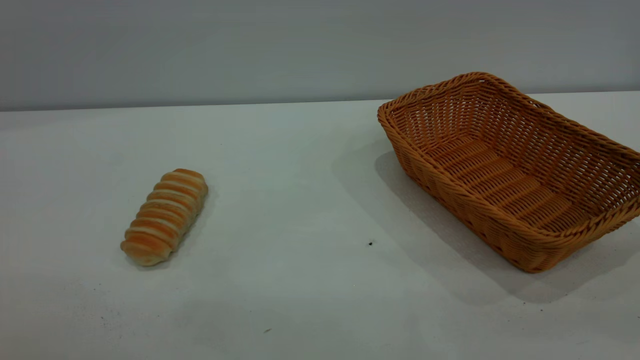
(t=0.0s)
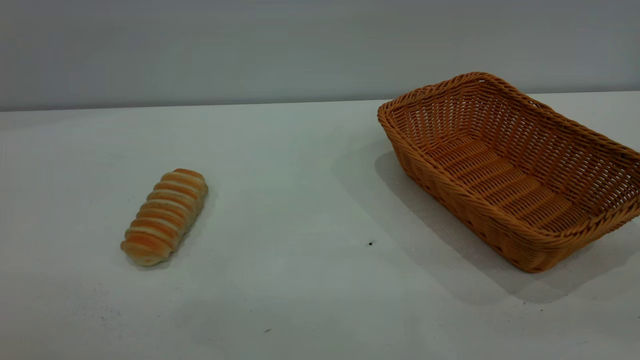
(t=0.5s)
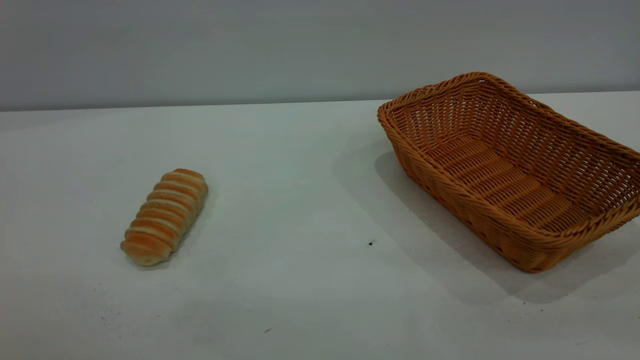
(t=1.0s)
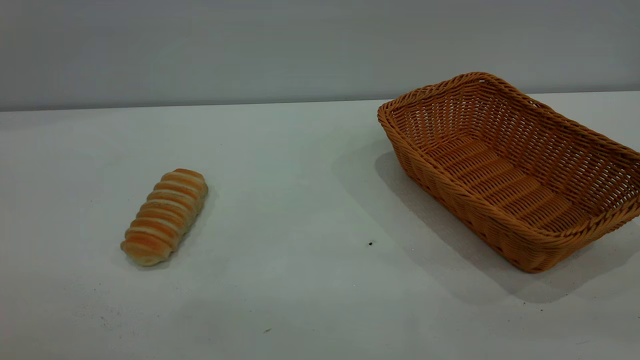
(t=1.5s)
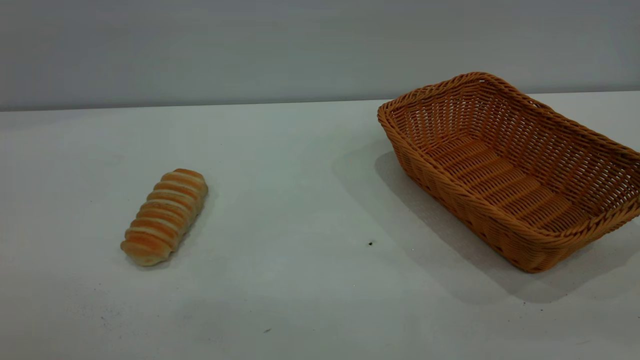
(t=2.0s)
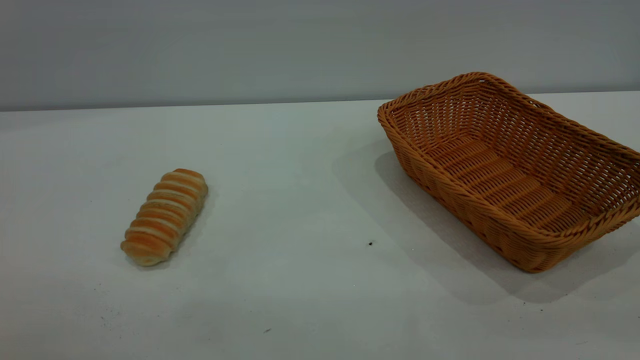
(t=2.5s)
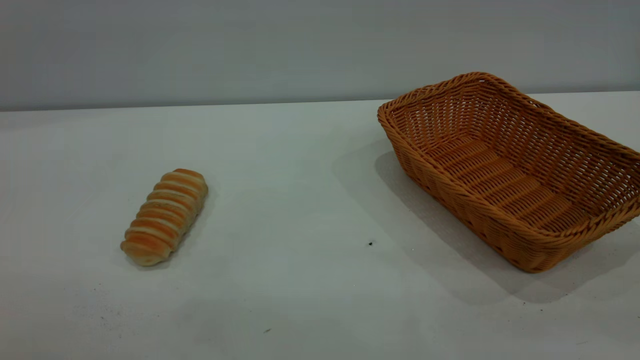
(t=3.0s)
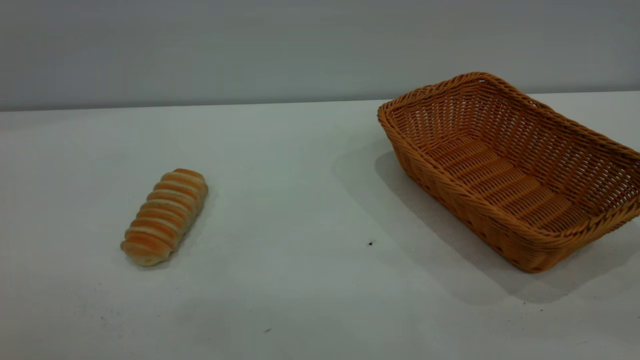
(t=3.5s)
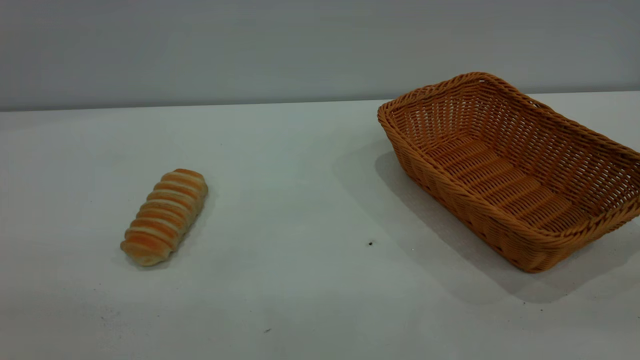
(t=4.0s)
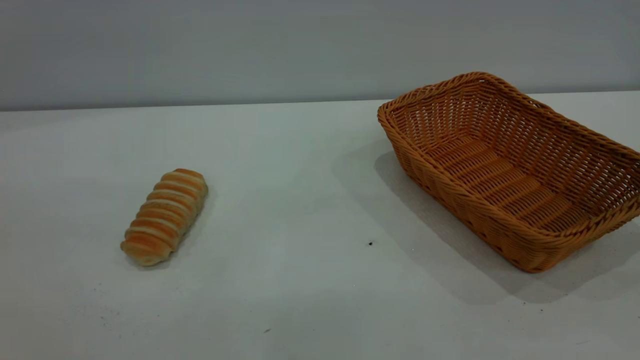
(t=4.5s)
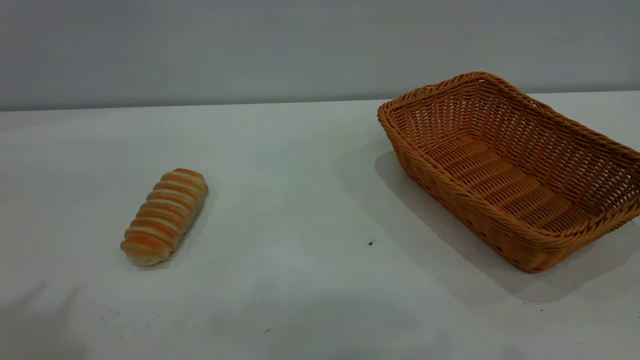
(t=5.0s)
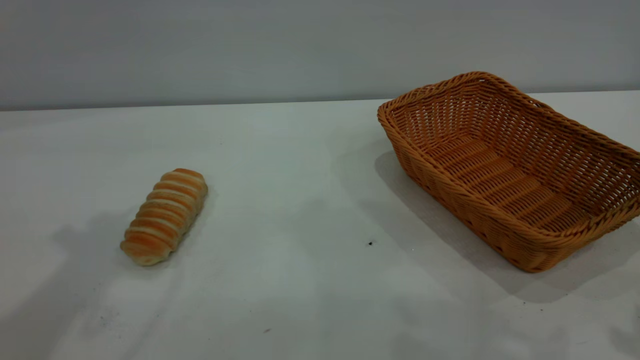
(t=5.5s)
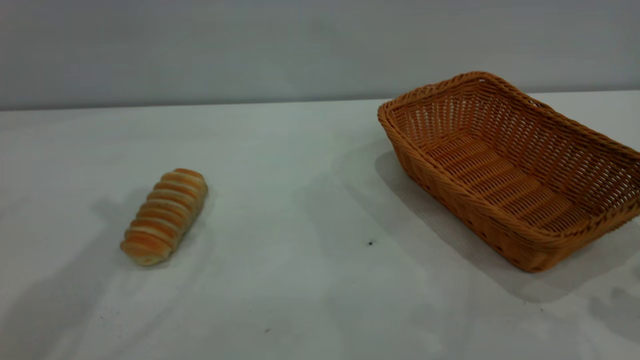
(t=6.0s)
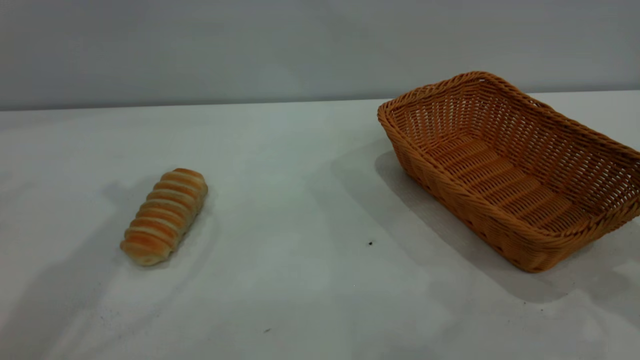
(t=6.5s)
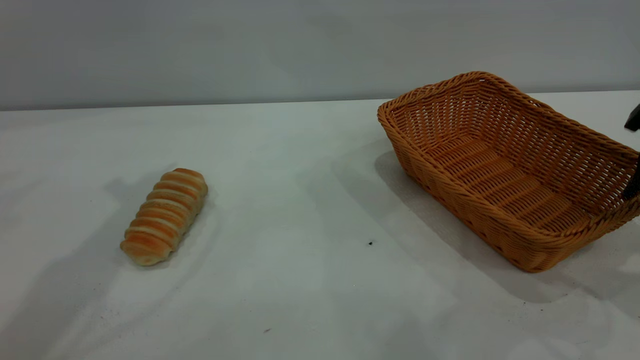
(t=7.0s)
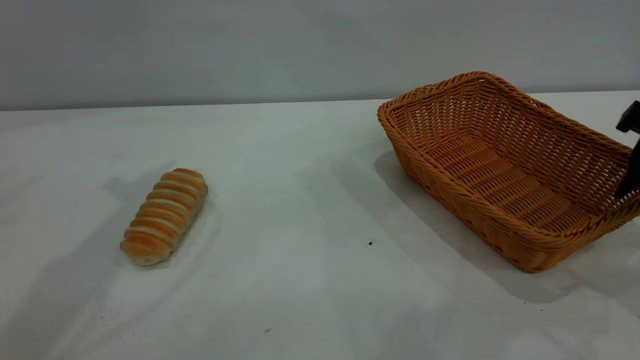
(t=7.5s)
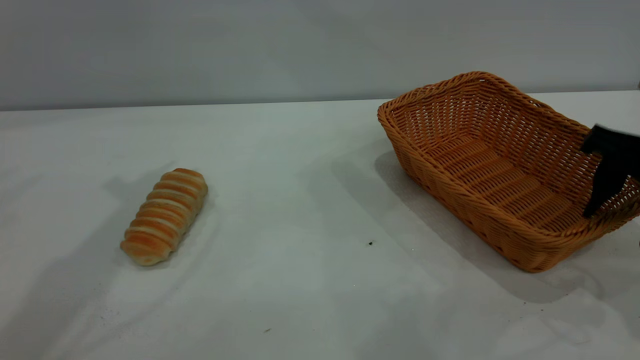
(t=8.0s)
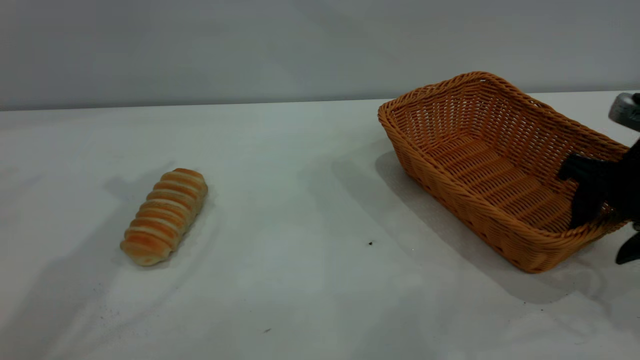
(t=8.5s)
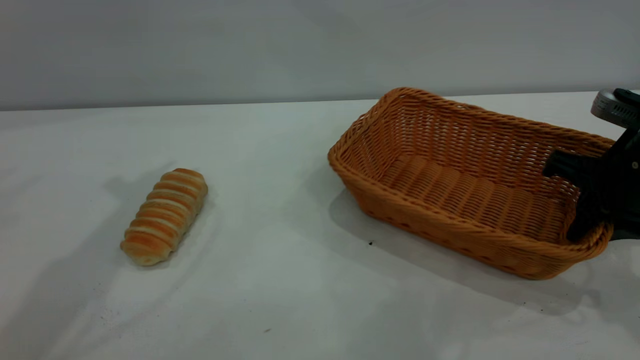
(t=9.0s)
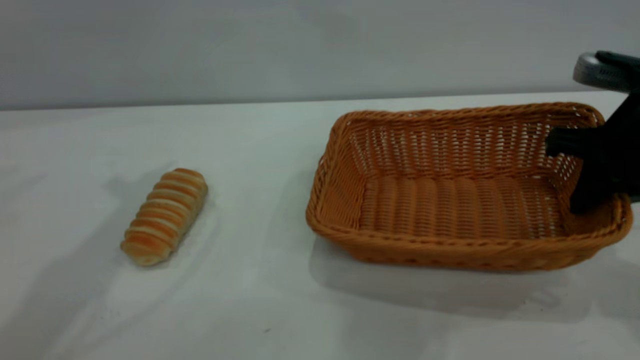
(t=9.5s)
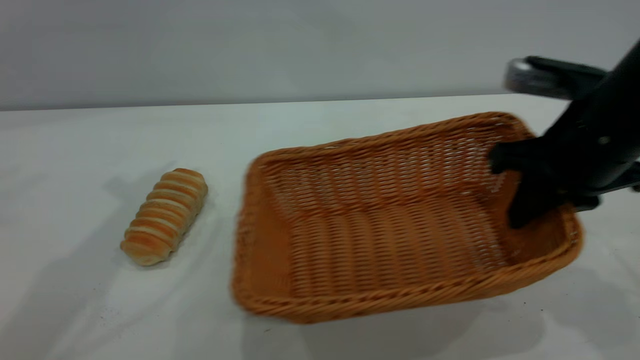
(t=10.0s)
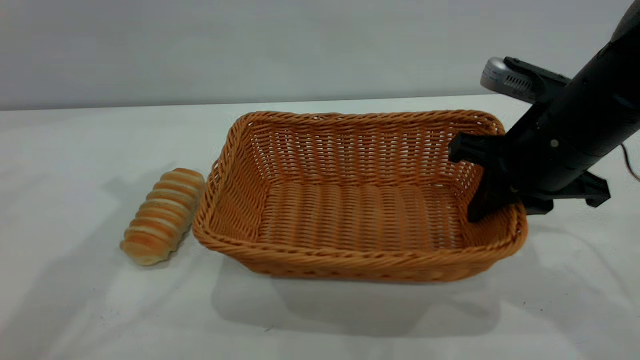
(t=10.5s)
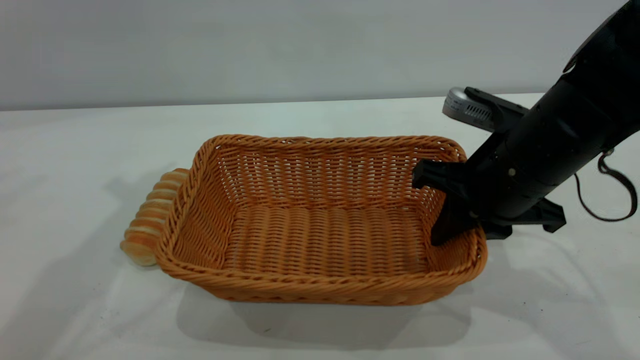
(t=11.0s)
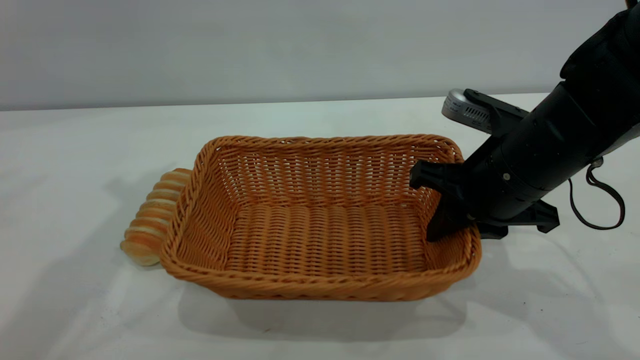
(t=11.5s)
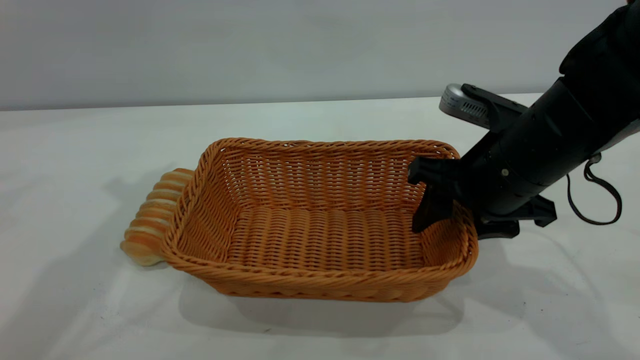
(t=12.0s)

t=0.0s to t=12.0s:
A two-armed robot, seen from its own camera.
Task of the whole recording: One hand grasps the yellow basket and places it in the middle of the table, while the other hand picks up the long bread and puts it into the yellow basket.
t=0.0s to t=2.0s: Both grippers stay about where they are.
t=6.0s to t=8.0s: The right gripper is displaced downward and forward by roughly 10 cm.
t=8.0s to t=10.0s: The right gripper goes some 10 cm to the left, and closes its fingers.
t=10.0s to t=12.0s: The right gripper moves about 5 cm, and opens its fingers.

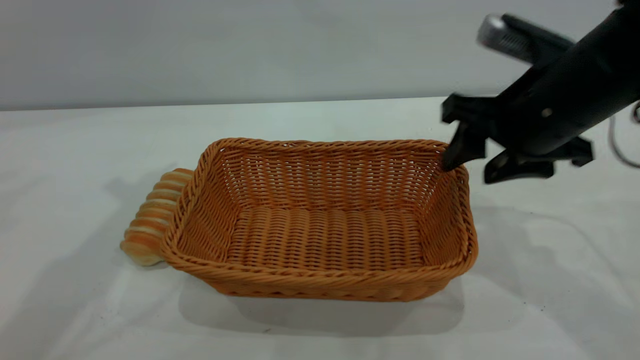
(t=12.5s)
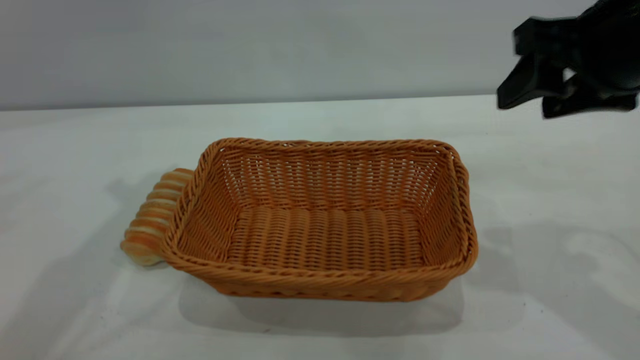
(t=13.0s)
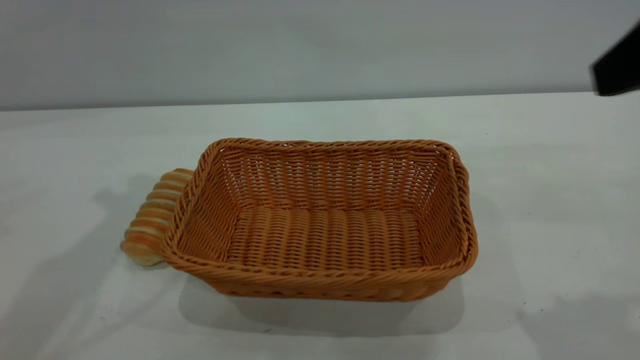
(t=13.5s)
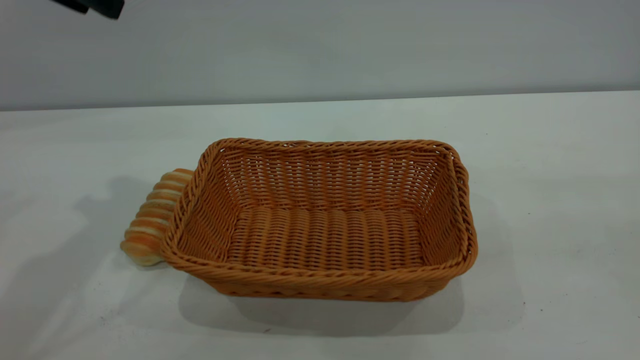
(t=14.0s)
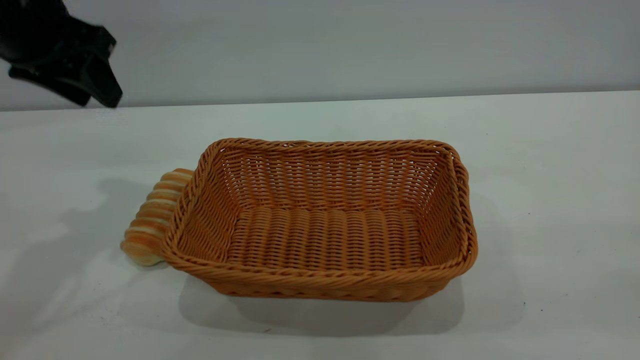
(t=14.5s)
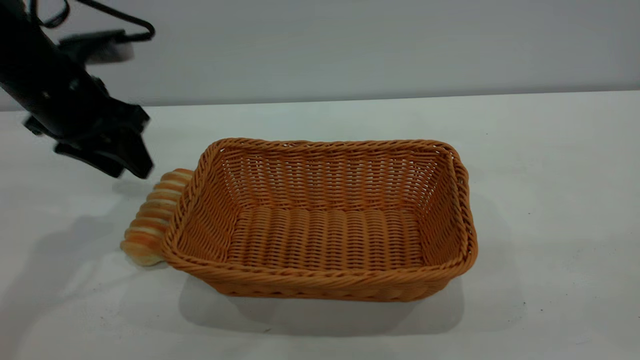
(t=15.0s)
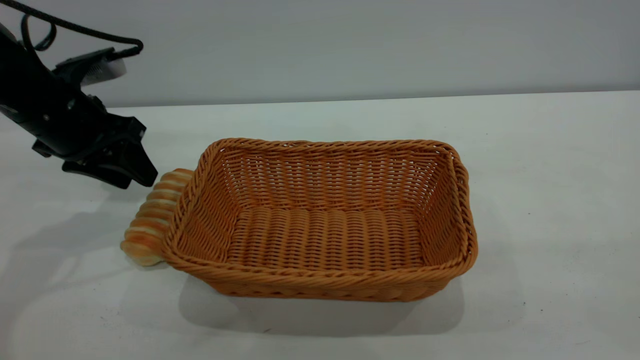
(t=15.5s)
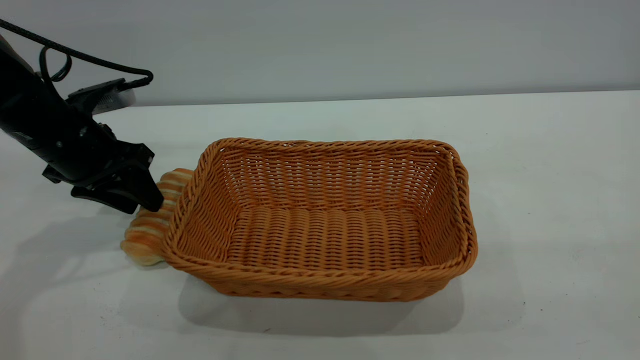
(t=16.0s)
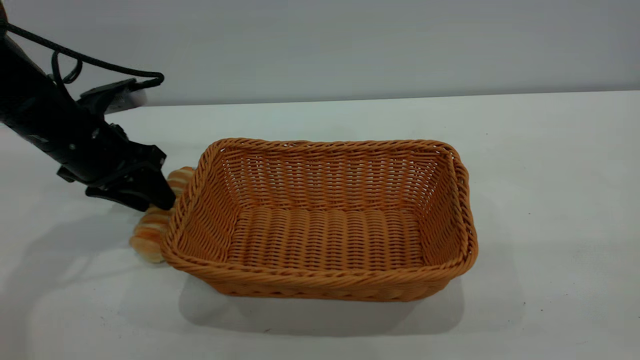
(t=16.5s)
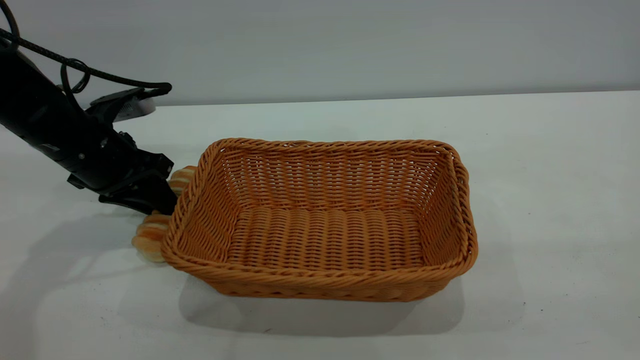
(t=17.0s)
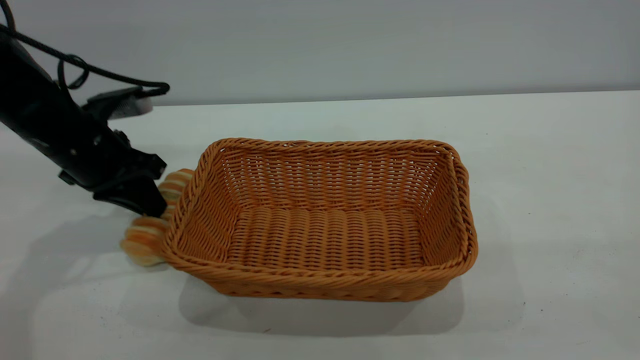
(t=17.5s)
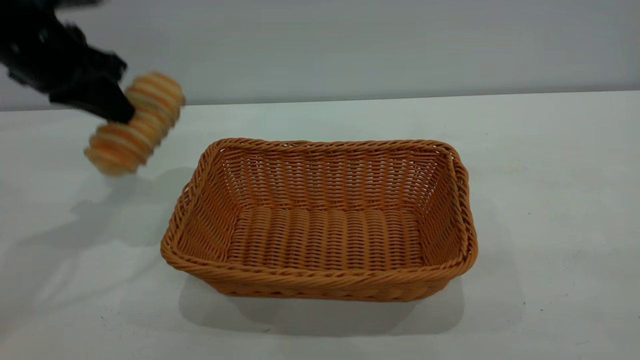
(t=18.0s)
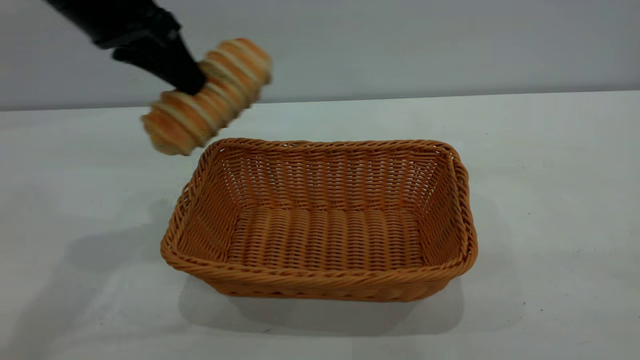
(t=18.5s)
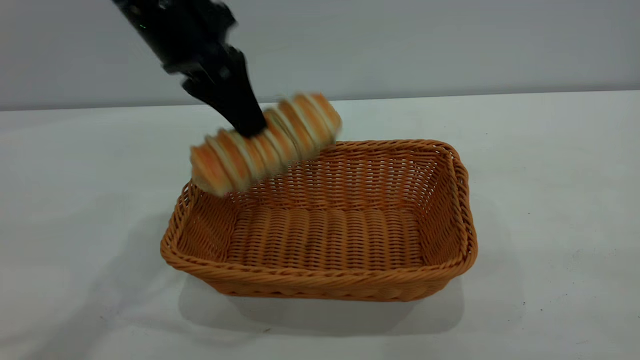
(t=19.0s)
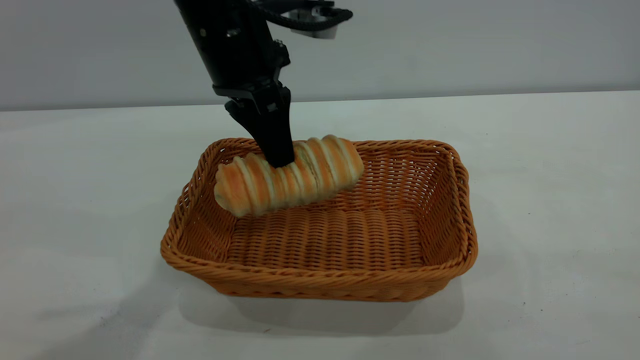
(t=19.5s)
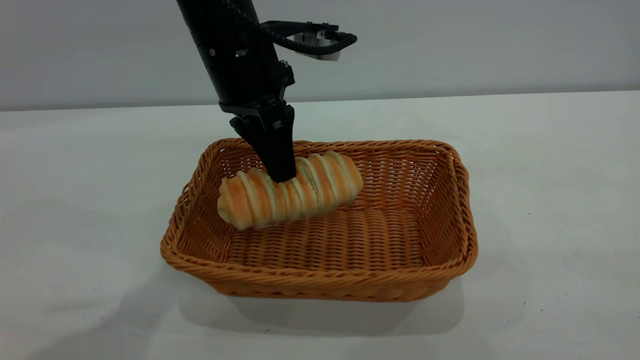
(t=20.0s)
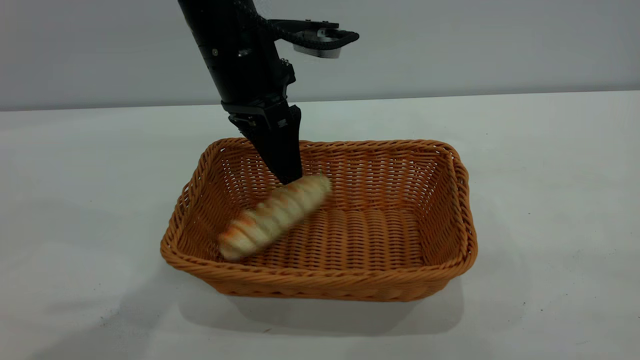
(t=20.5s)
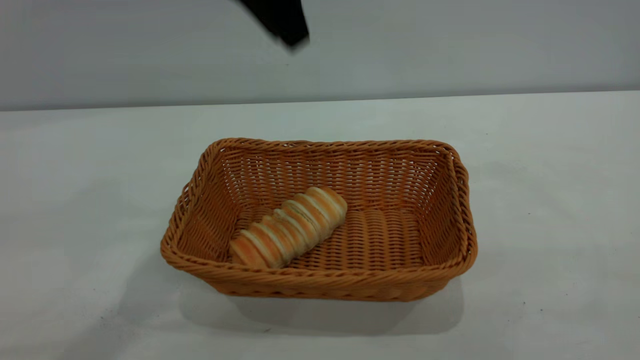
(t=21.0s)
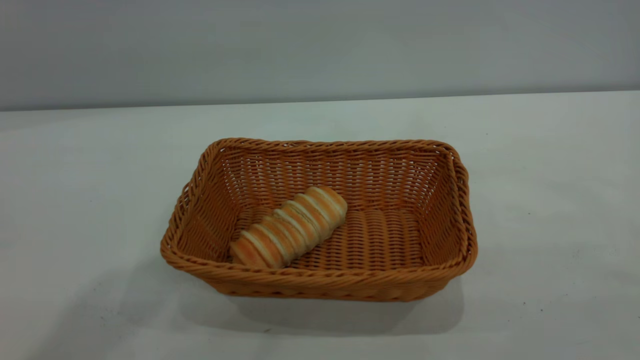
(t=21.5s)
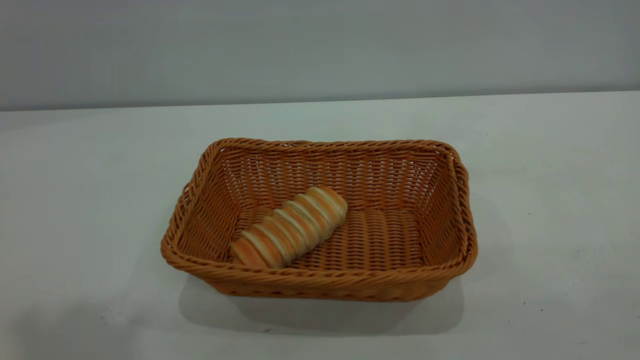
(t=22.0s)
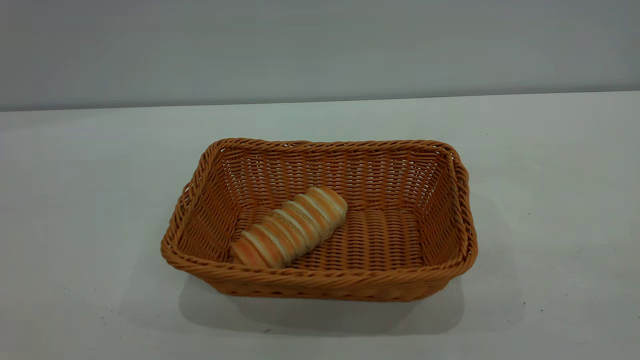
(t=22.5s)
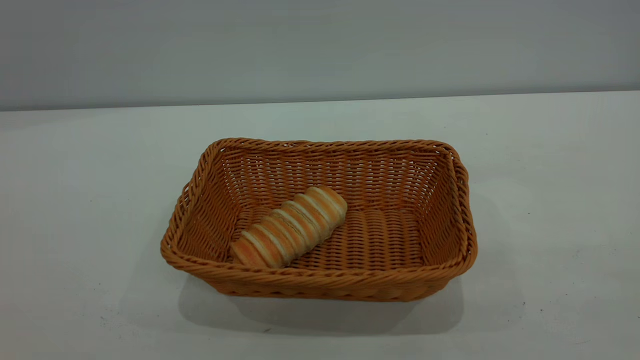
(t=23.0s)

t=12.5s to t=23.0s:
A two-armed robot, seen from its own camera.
Task of the whole recording: One hand grasps the yellow basket and places it in the middle of the table, while the other hand picks up the long bread and puts it into the yellow basket.
Step, t=18.0s to t=20.5s: place the bread into the basket.
t=12.5s to t=14.5s: The left gripper goes some 10 cm downward. Meanwhile the right gripper travels backward and upward by approximately 35 cm.
t=14.5s to t=16.5s: The left gripper shifts roughly 15 cm downward.
t=16.5s to t=19.0s: The left gripper is displaced to the right and upward by some 20 cm, and closes.
t=19.0s to t=21.0s: The left gripper shifts approximately 10 cm upward, and opens up.
t=21.0s to t=23.0s: The left gripper is displaced backward and to the left by roughly 50 cm.
